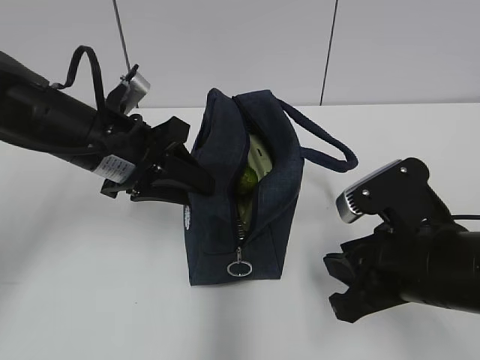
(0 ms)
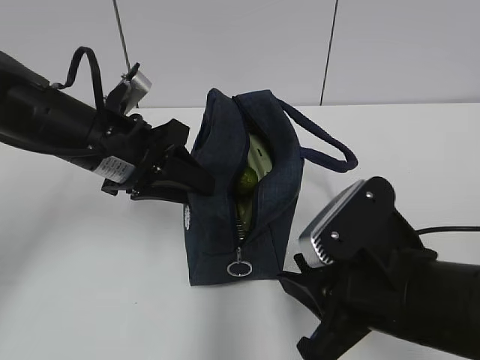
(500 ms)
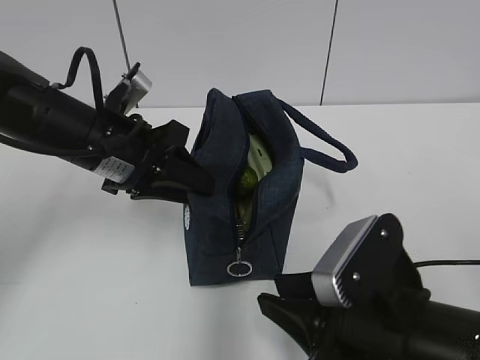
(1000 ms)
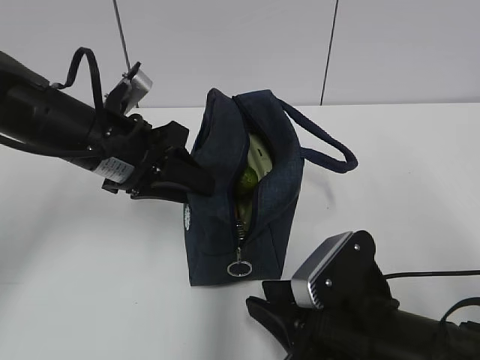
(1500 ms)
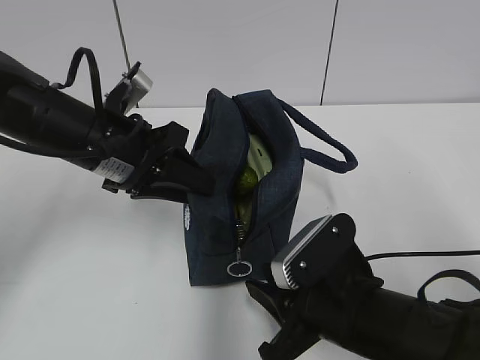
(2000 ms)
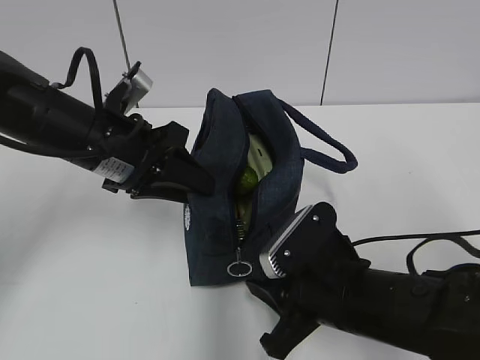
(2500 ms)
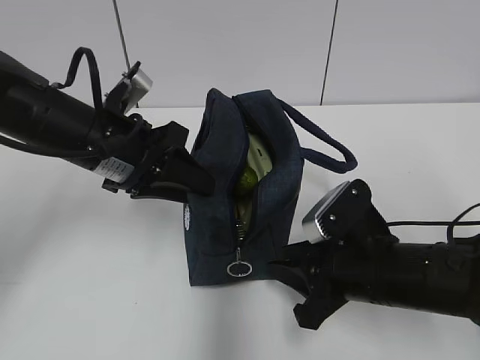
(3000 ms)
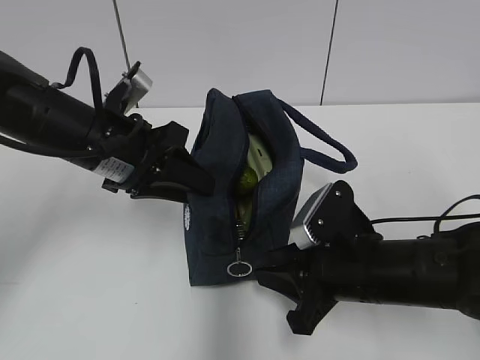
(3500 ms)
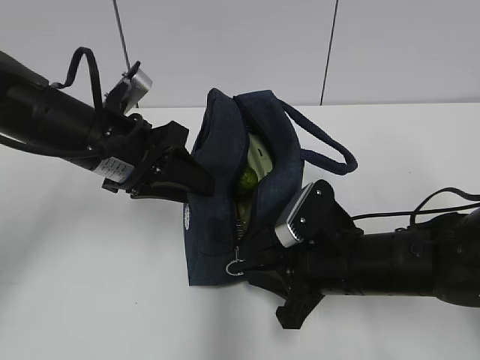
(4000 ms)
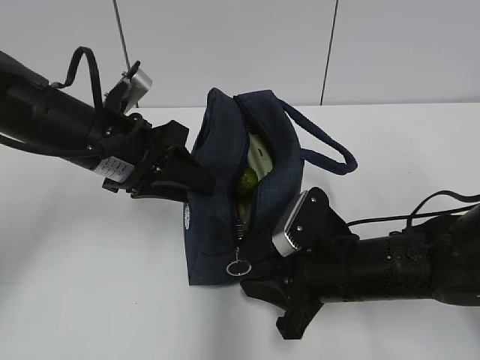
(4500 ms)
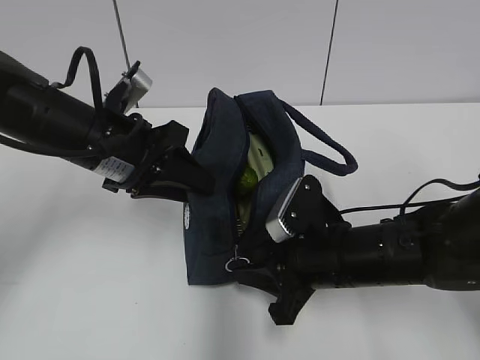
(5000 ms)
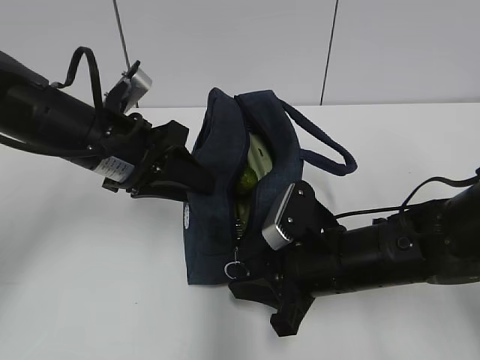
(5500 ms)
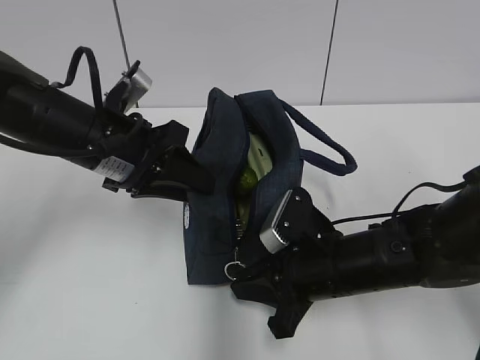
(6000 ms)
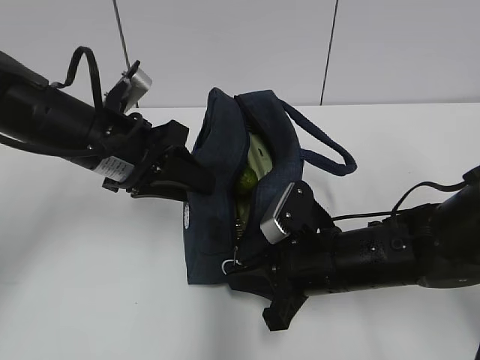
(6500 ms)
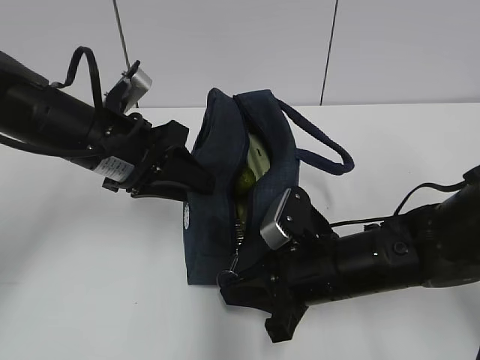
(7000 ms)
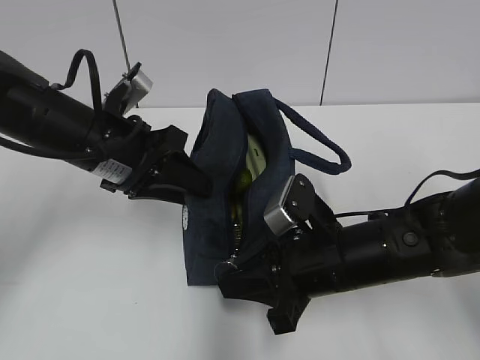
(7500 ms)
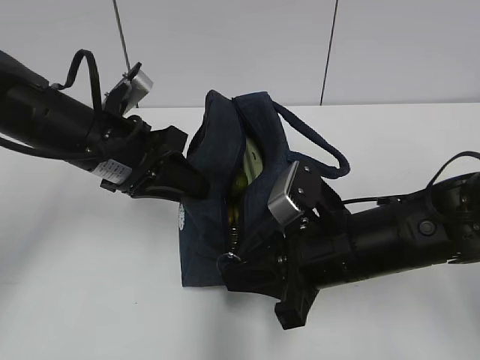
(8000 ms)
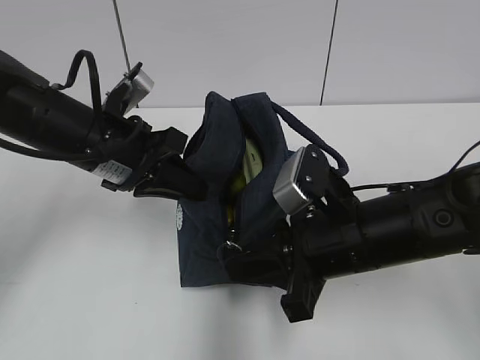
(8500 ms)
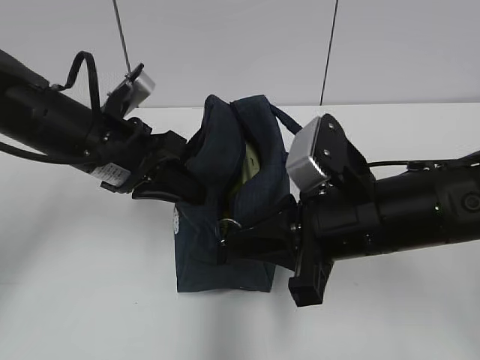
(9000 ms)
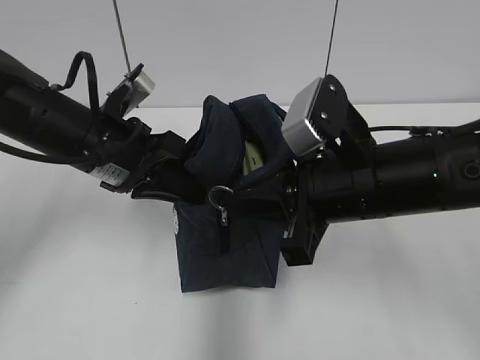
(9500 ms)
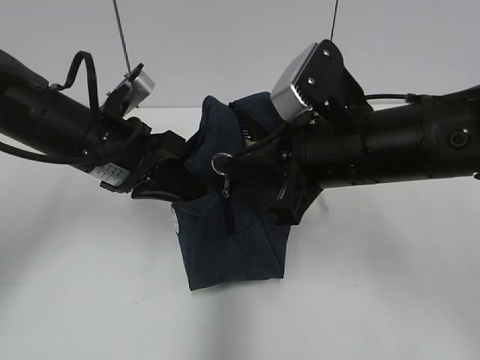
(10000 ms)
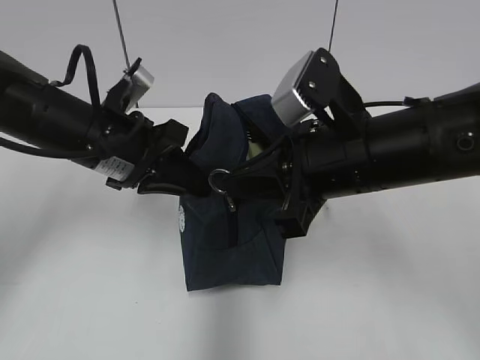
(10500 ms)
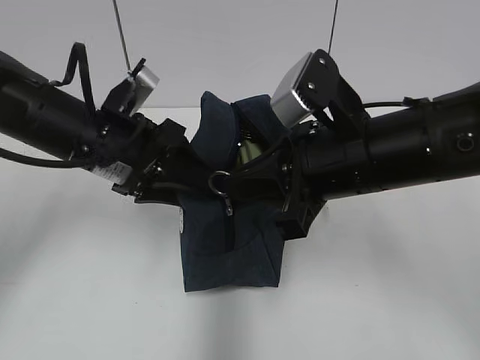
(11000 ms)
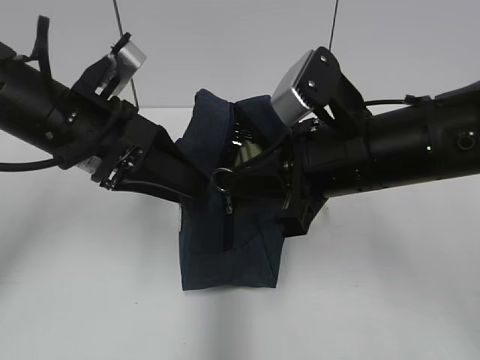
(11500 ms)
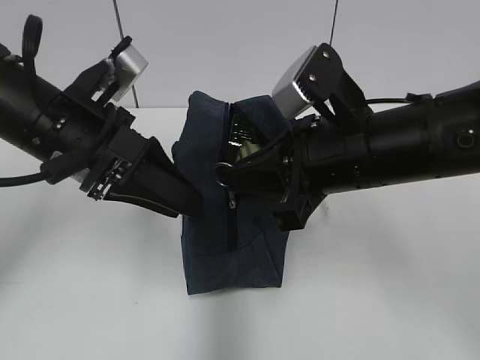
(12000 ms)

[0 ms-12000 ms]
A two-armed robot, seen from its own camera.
0 ms to 2000 ms: The right gripper moves downward and to the left, about 10 cm.
2000 ms to 4000 ms: The right gripper goes approximately 5 cm forward.
4000 ms to 6000 ms: The grippers stay close to where they were, moving slightly.
6000 ms to 8000 ms: The right gripper shifts roughly 5 cm upward.
8000 ms to 10000 ms: The right gripper heads upward, covering about 10 cm.
10000 ms to 12000 ms: The left gripper shifts by approximately 5 cm, and opens its fingers.

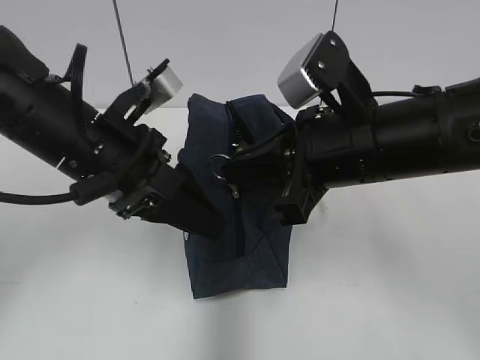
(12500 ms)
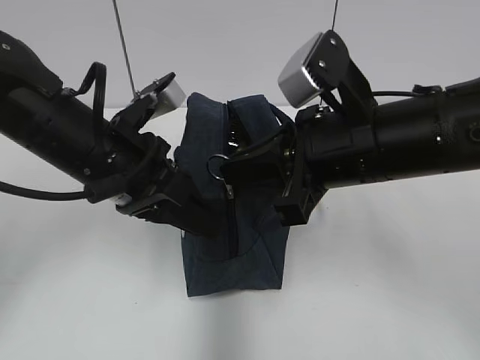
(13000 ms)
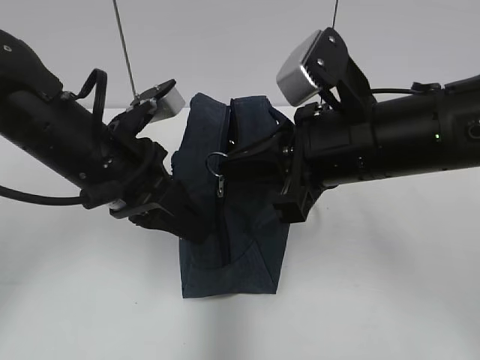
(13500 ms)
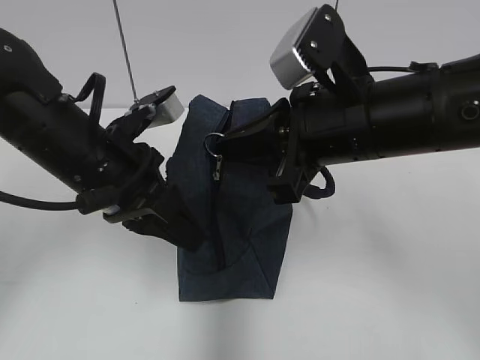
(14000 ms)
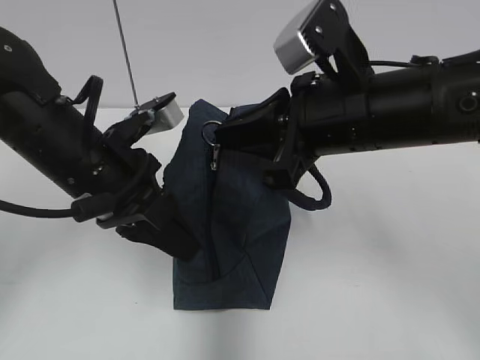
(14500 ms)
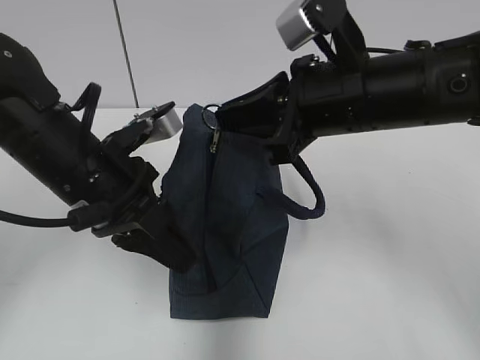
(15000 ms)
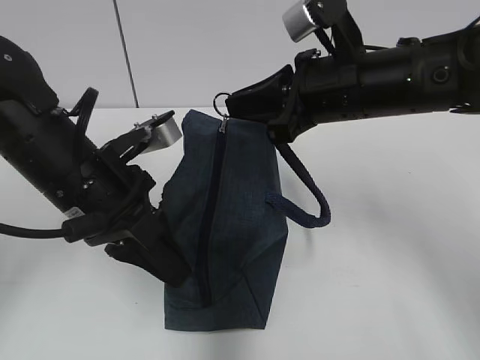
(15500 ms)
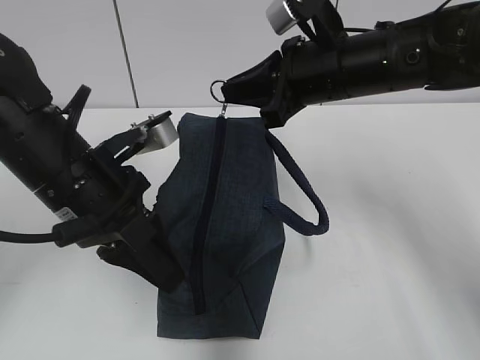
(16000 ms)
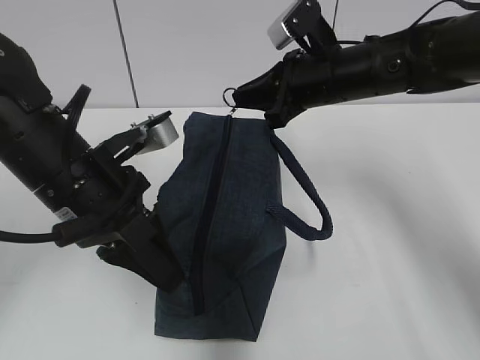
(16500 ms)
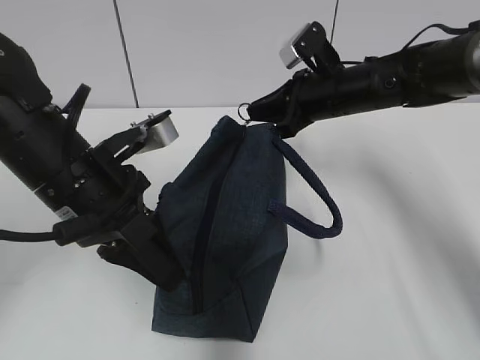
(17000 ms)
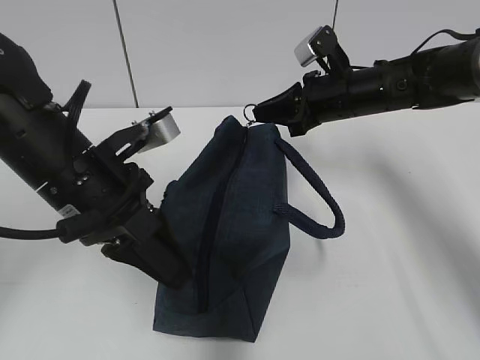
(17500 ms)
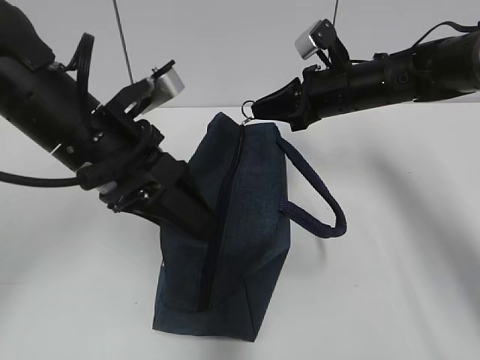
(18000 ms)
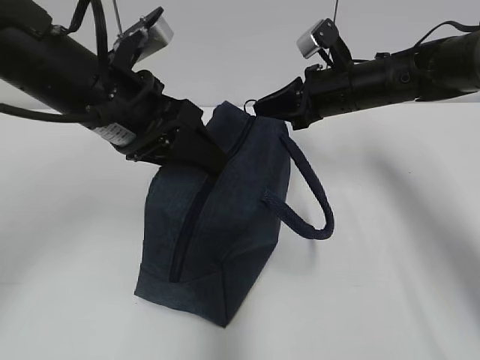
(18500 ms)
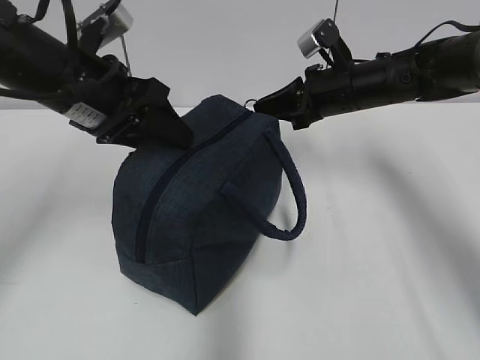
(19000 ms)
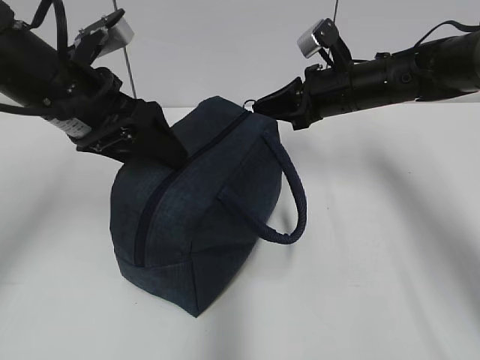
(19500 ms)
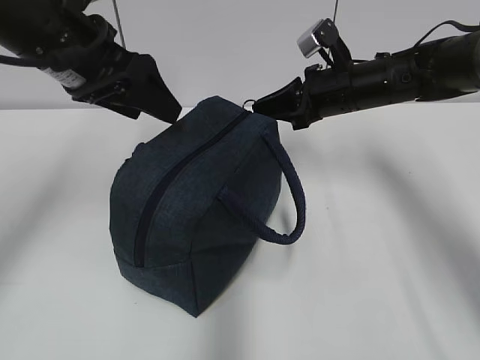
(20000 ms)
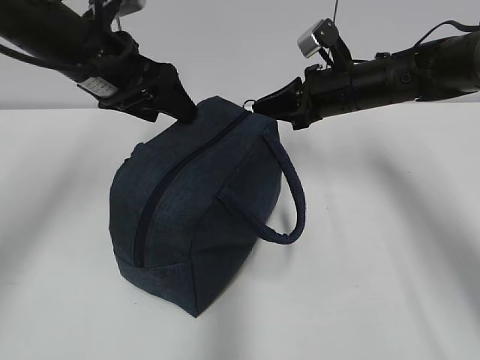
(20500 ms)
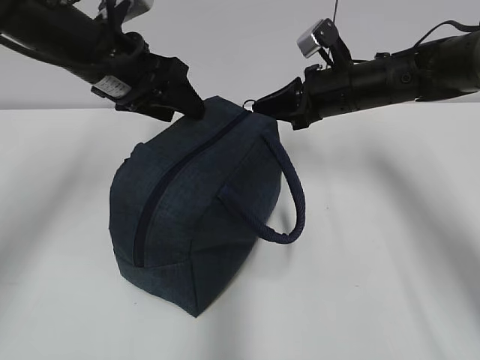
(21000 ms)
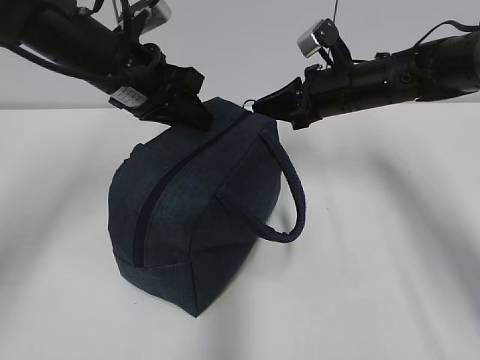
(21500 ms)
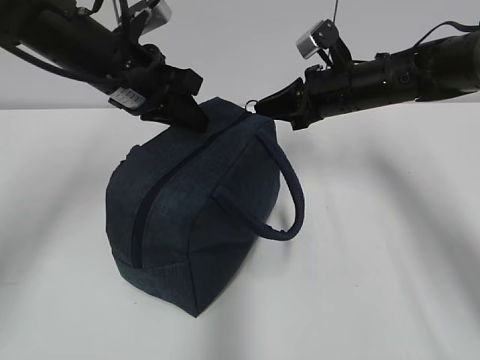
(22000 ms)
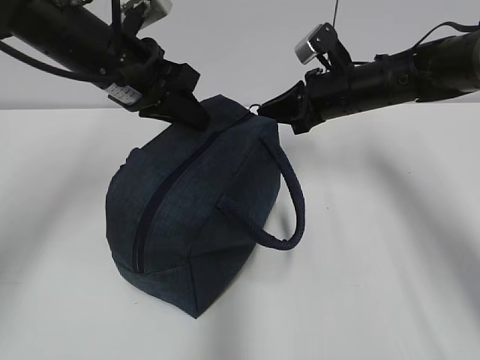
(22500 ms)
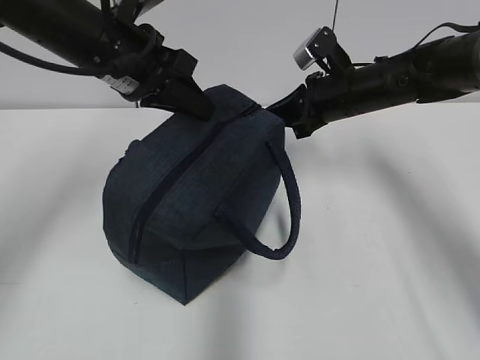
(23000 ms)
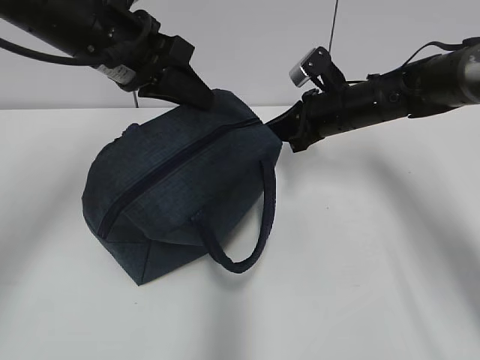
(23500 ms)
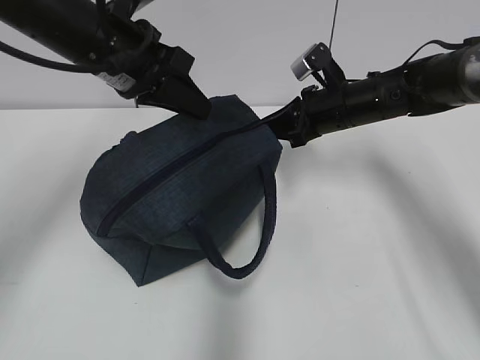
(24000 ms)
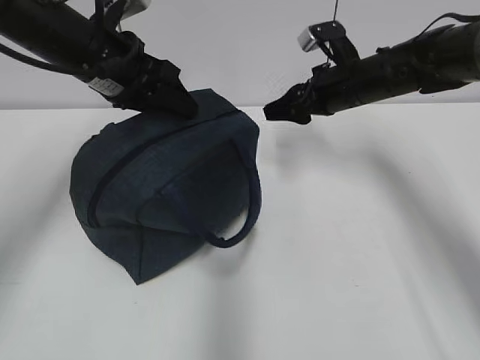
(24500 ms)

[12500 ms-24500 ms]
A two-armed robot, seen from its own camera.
12500 ms to 14500 ms: The left gripper closes.
14500 ms to 16500 ms: The right gripper goes about 15 cm forward.
16500 ms to 18500 ms: The left gripper heads forward, covering roughly 5 cm, and opens. Meanwhile the right gripper ends up roughly 5 cm from where it was.
18500 ms to 20500 ms: The left gripper moves forward, about 5 cm.
20500 ms to 22500 ms: The left gripper closes its fingers.
22500 ms to 24500 ms: The left gripper opens. The right gripper opens its fingers.

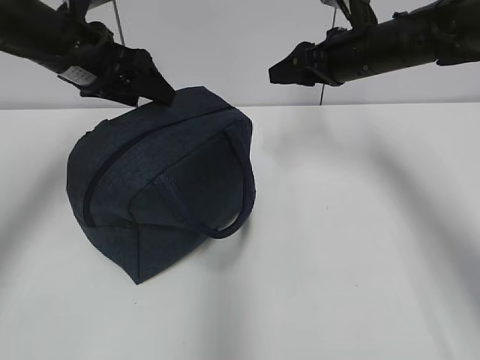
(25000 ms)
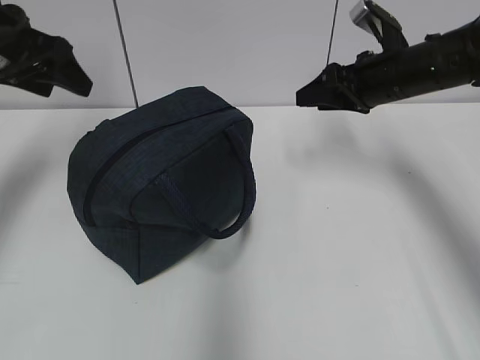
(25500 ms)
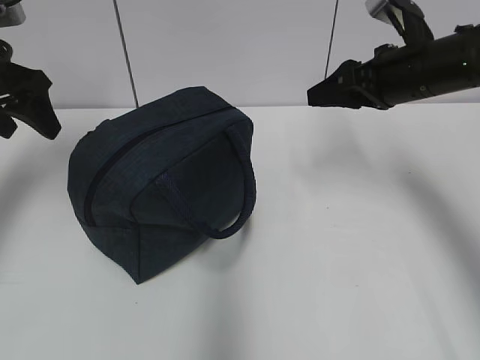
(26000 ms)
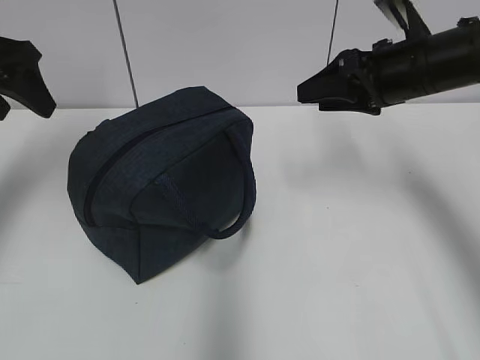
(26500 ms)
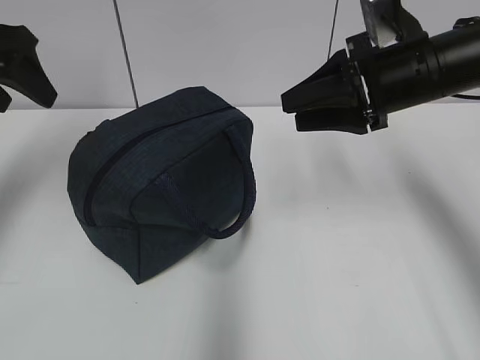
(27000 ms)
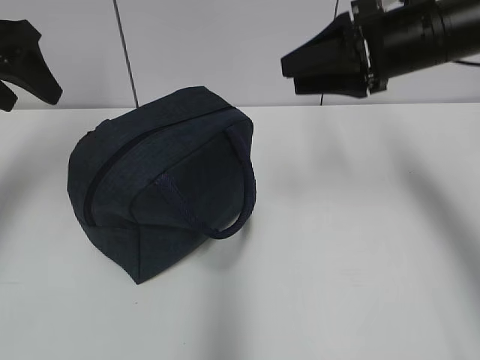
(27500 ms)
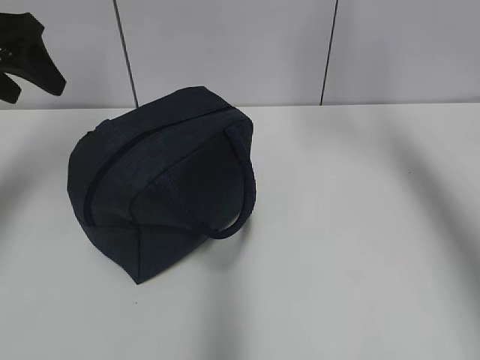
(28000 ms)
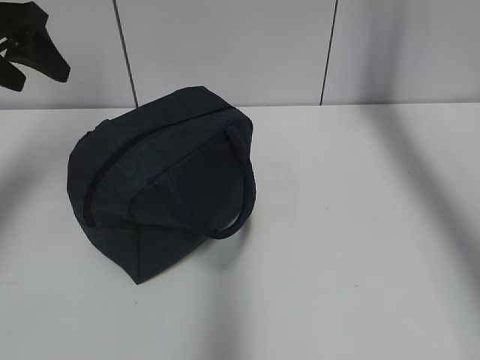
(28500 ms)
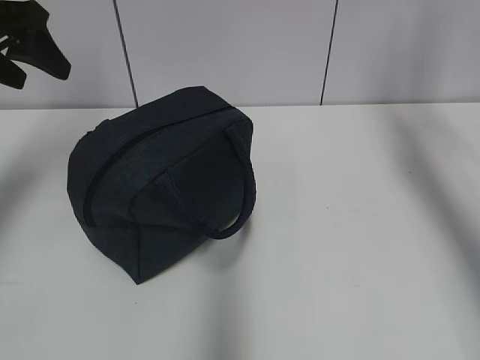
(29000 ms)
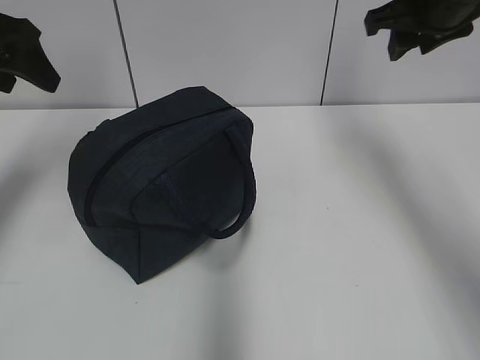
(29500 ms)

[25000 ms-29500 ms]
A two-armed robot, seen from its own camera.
25000 ms to 27000 ms: The left gripper is displaced to the left, backward and upward by about 10 cm. The right gripper moves backward, some 10 cm.
27000 ms to 29500 ms: The right gripper moves upward, approximately 5 cm.
